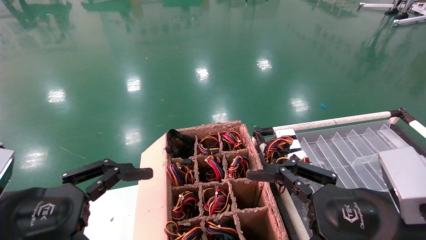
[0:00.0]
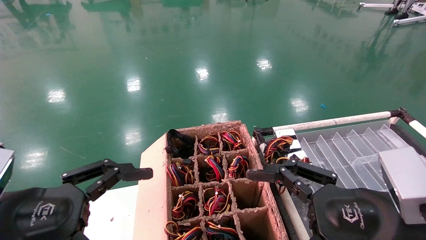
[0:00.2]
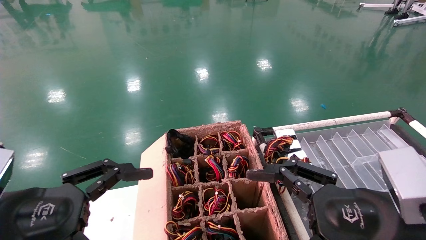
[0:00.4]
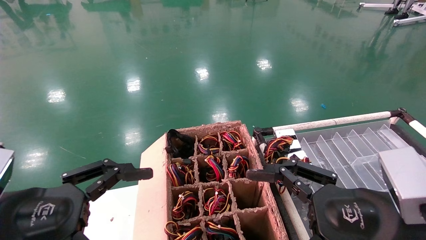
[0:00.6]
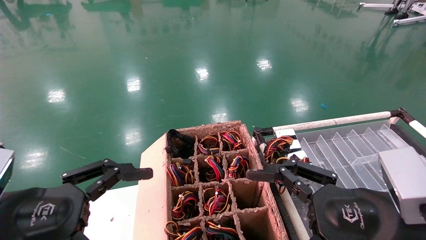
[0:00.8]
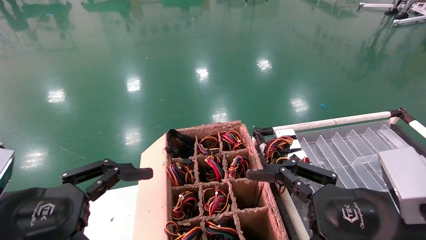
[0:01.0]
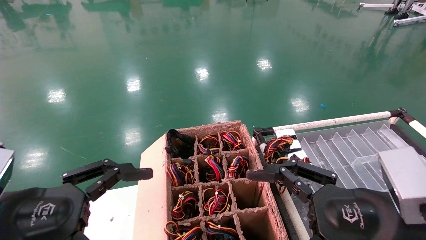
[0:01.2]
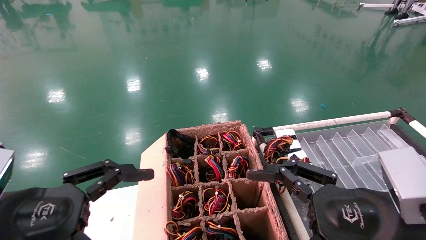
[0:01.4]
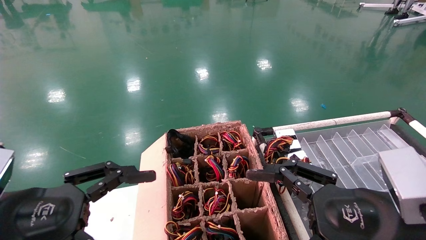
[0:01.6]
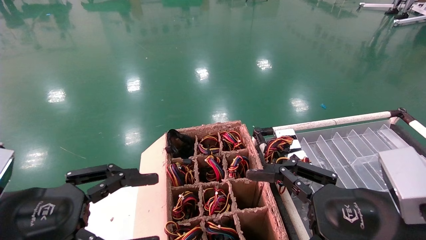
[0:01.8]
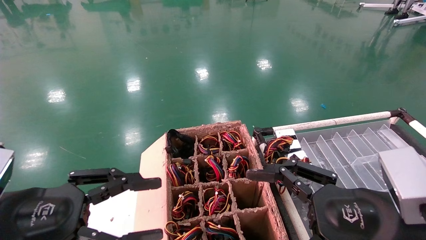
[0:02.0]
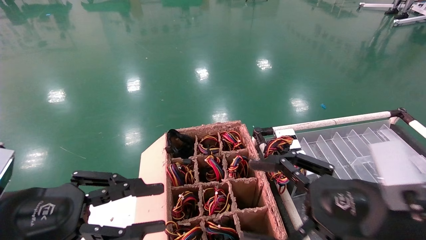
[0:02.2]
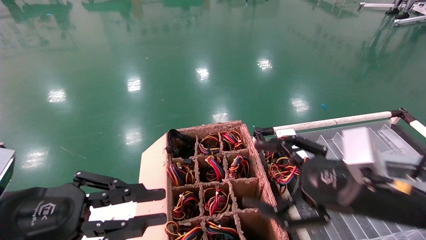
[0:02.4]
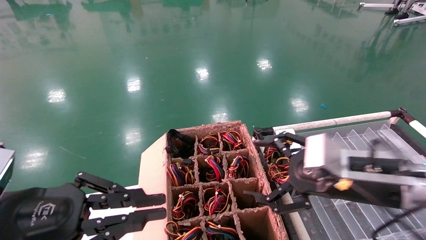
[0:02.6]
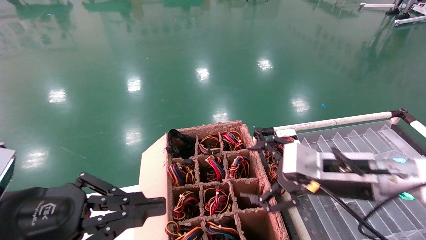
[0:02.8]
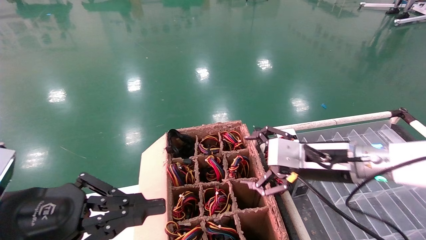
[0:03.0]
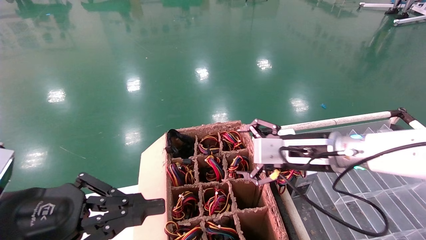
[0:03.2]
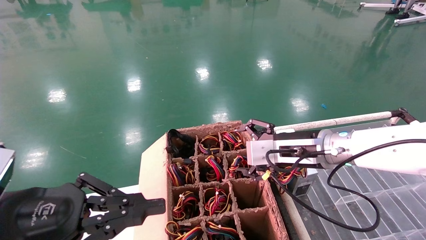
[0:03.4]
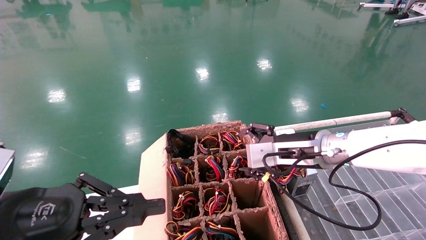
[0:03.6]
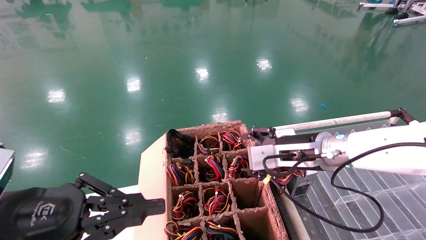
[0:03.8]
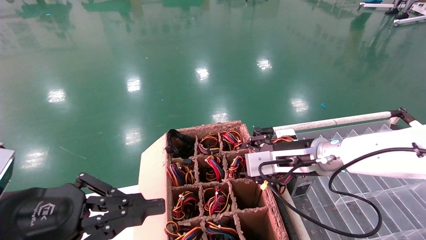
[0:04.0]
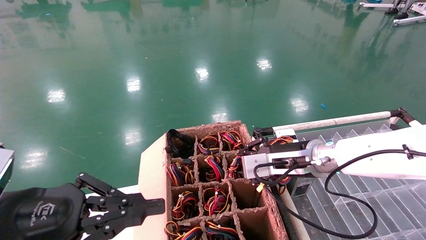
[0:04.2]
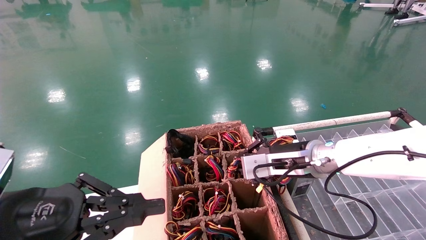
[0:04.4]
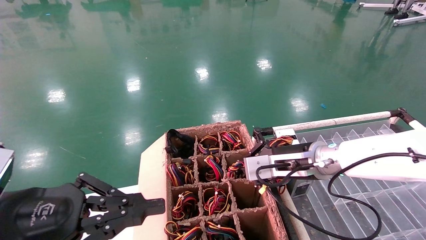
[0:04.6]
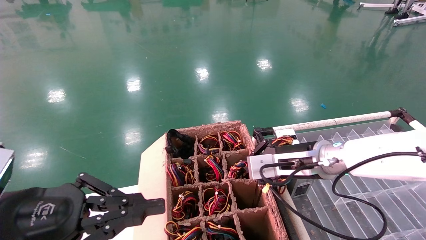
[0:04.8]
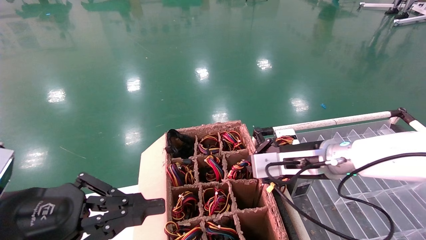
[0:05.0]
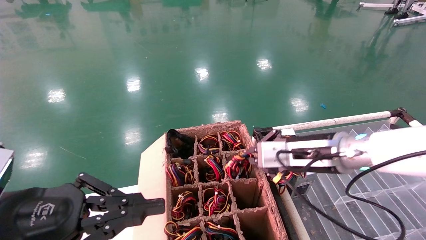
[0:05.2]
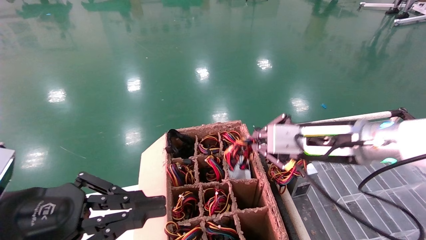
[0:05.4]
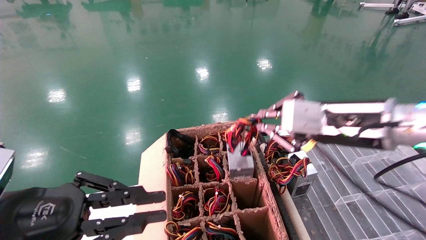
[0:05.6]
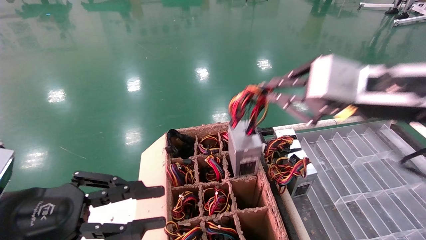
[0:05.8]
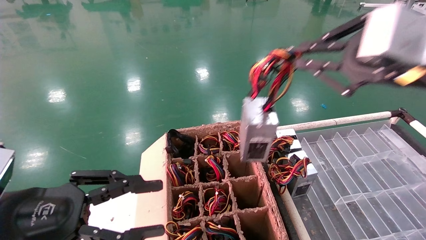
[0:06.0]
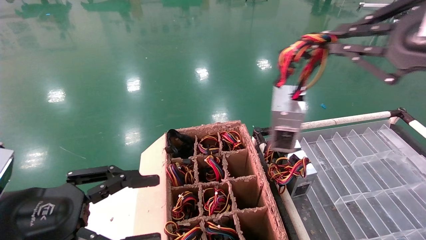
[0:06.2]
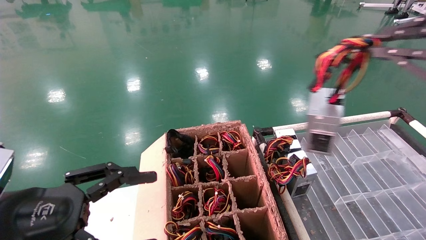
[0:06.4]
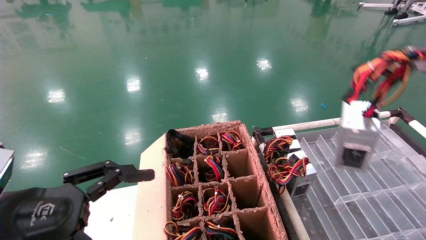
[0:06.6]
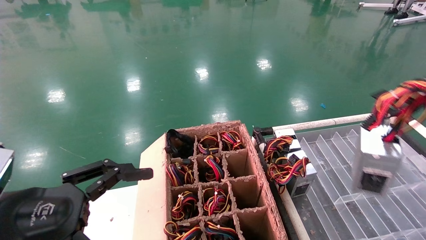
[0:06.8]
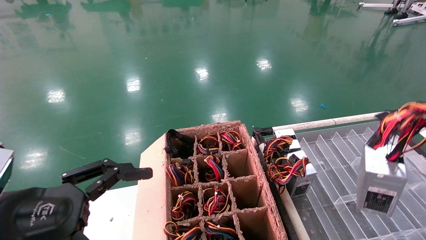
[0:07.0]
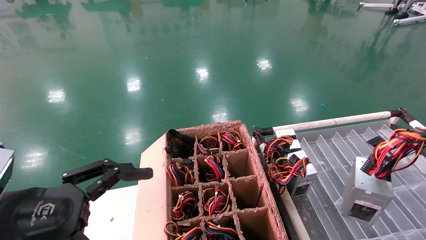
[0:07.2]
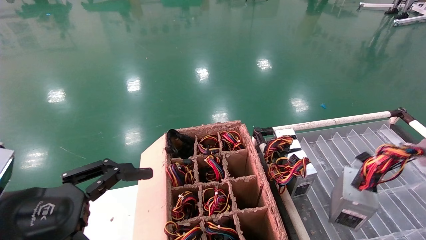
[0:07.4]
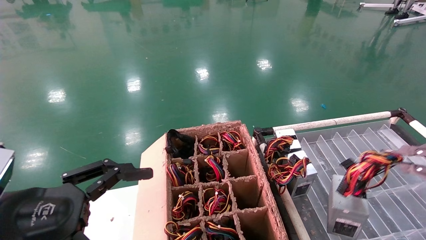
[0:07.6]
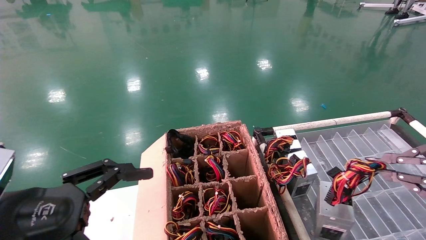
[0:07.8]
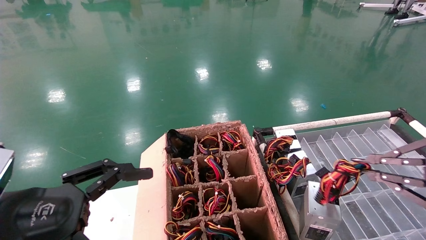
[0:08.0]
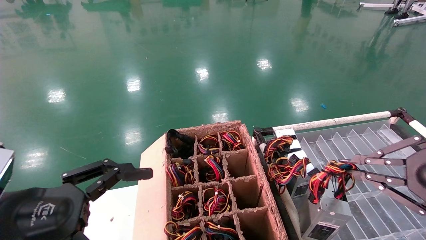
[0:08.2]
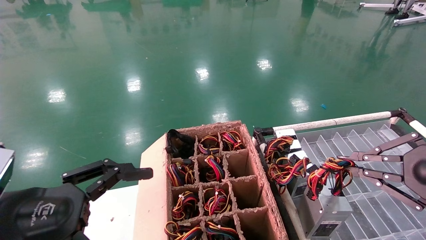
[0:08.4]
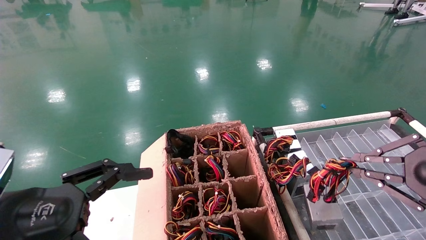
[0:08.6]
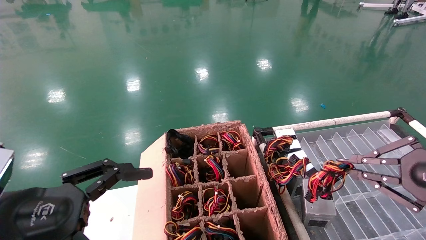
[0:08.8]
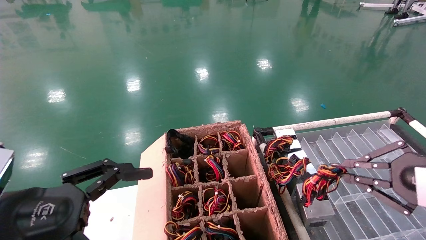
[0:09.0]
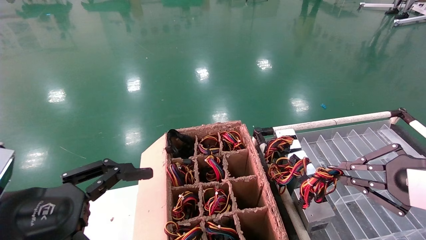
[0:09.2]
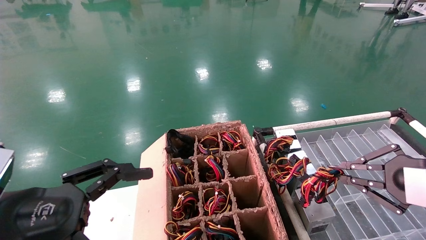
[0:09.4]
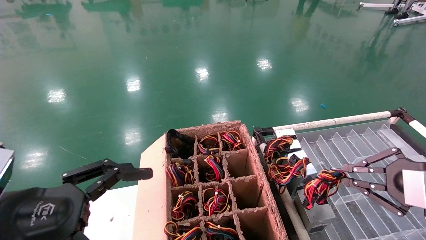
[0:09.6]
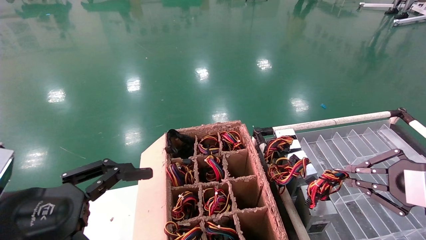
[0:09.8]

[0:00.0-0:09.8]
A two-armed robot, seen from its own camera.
Step, 0:00.0 to 0:06.0: Grab and lift the power supply from the large box.
0:00.0 to 0:01.4: Both grippers stay put.
0:01.4 to 0:02.8: The left gripper closes its fingers, while the right gripper is displaced forward by roughly 10 cm.
0:02.8 to 0:04.2: The right gripper heads forward, covering approximately 5 cm, and closes its fingers.
0:04.2 to 0:05.6: The right gripper heads upward and backward, covering about 15 cm, and closes.
0:05.6 to 0:07.0: The left gripper opens up; the right gripper is displaced to the right and backward by roughly 25 cm.
0:07.0 to 0:08.4: The right gripper moves downward, forward and to the left, about 10 cm.
0:08.4 to 0:09.8: The right gripper moves some 5 cm.

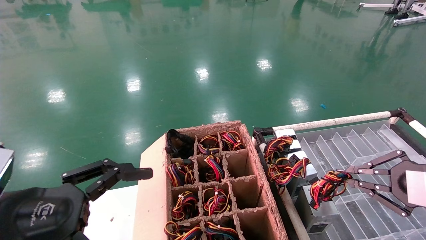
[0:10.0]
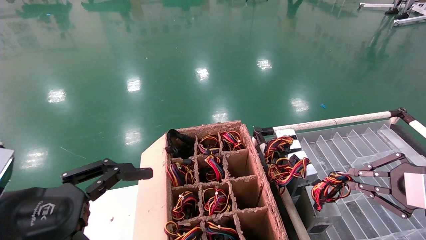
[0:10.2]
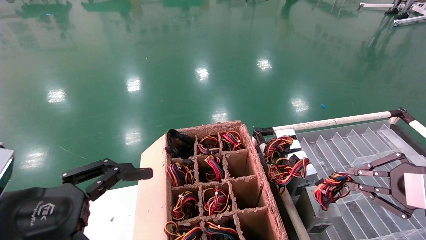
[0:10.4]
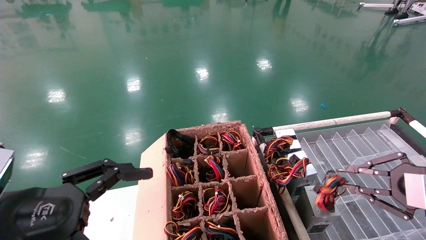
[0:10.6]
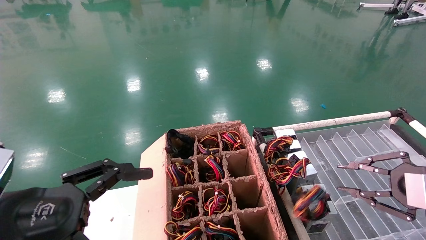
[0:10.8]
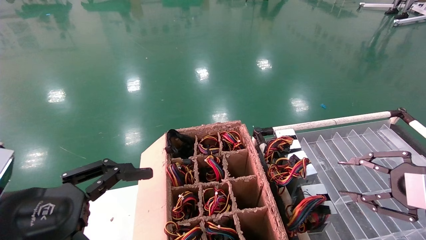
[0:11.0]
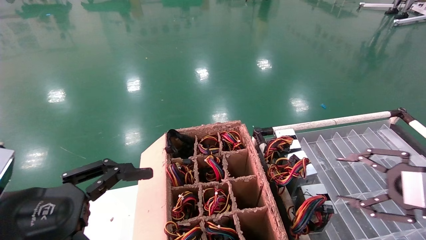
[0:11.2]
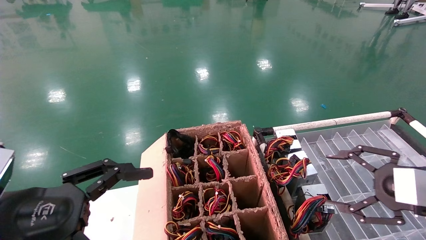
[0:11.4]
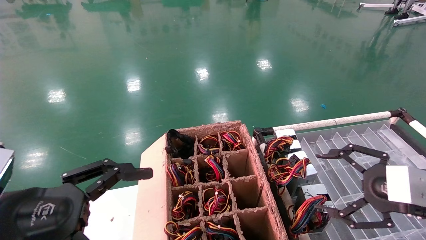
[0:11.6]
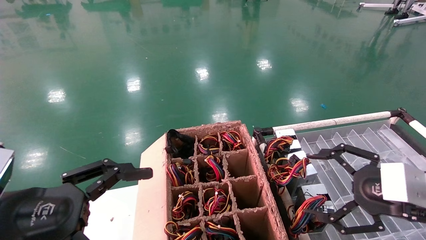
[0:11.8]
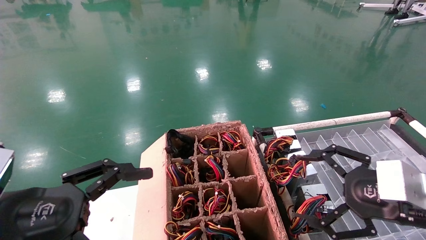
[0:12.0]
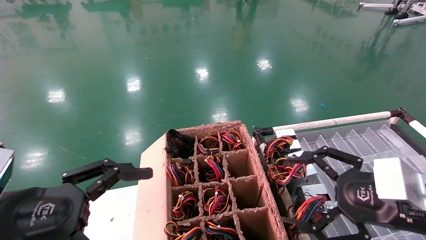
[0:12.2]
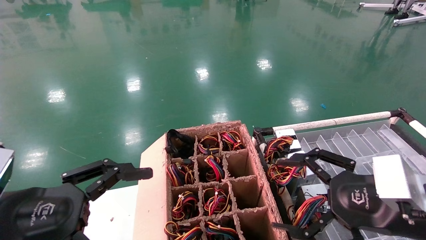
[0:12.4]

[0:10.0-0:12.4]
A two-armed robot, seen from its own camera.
Step, 0:10.0 to 0:12.4: Place the power supply on the operating table.
0:10.0 to 0:11.2: The right gripper opens up.
0:11.2 to 0:12.4: The right gripper shifts roughly 10 cm to the left, and opens up.

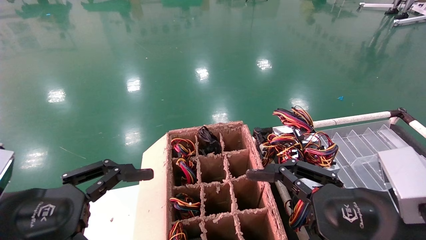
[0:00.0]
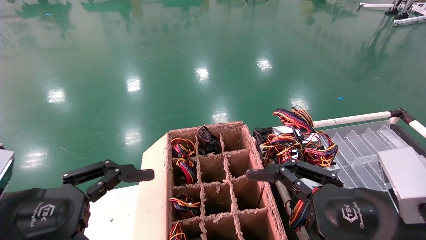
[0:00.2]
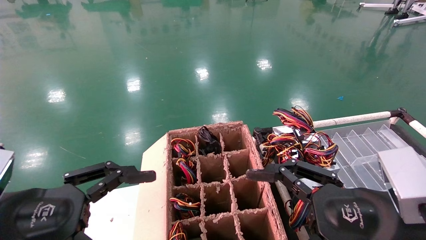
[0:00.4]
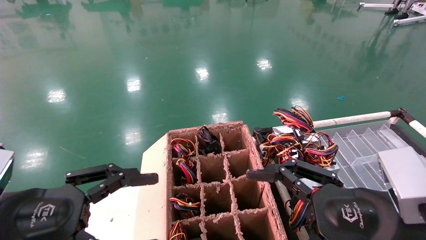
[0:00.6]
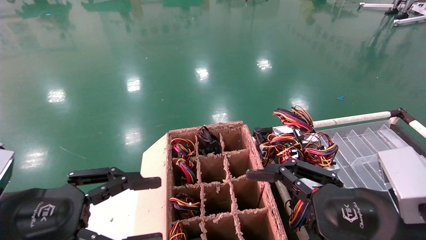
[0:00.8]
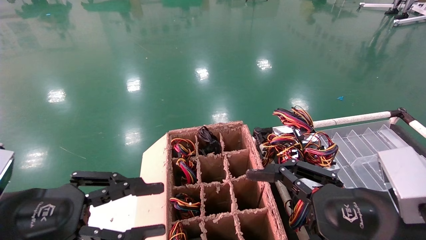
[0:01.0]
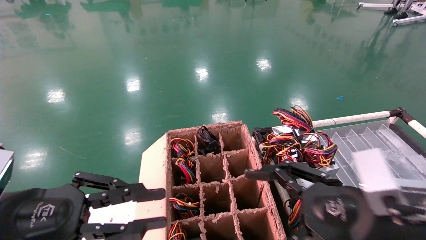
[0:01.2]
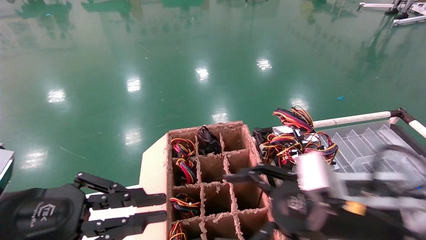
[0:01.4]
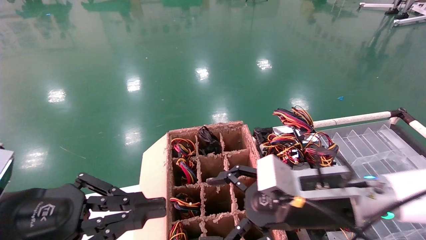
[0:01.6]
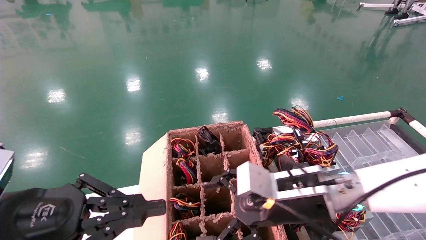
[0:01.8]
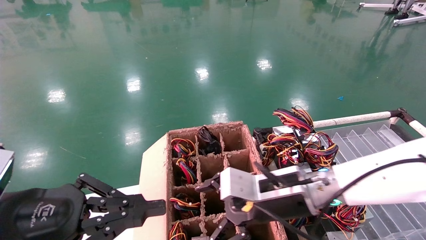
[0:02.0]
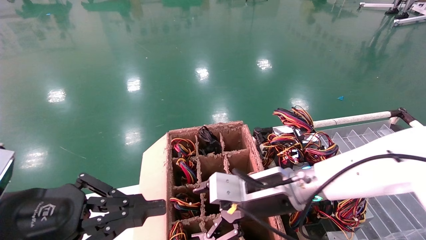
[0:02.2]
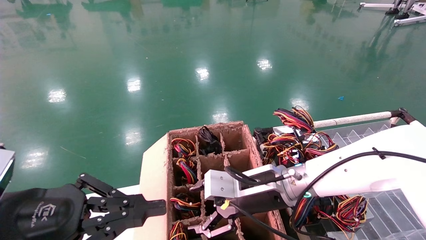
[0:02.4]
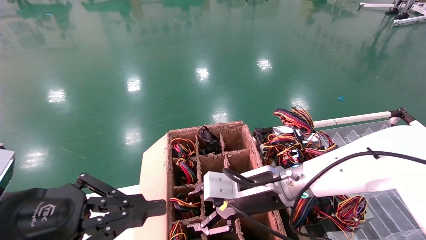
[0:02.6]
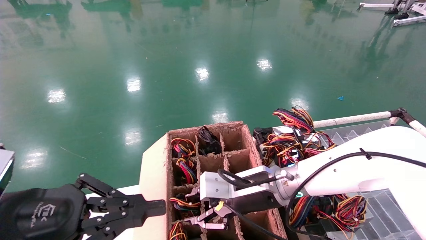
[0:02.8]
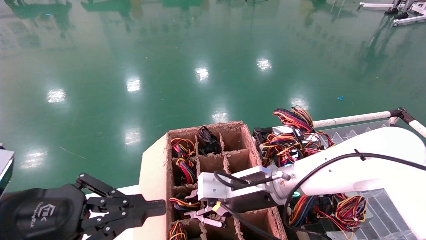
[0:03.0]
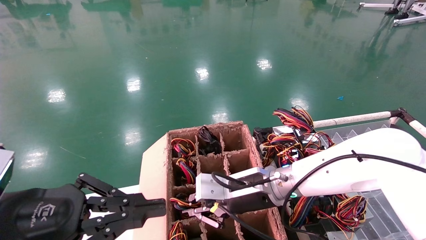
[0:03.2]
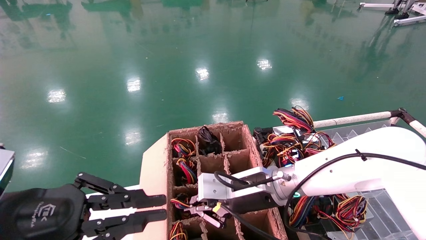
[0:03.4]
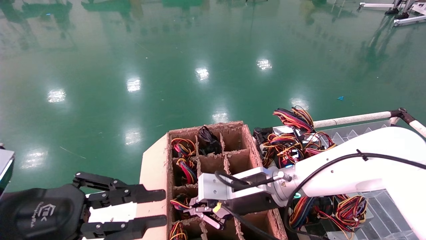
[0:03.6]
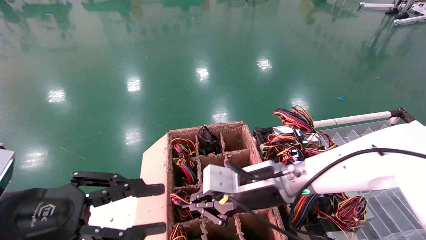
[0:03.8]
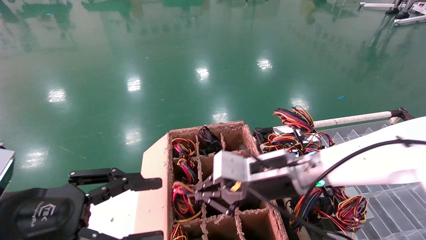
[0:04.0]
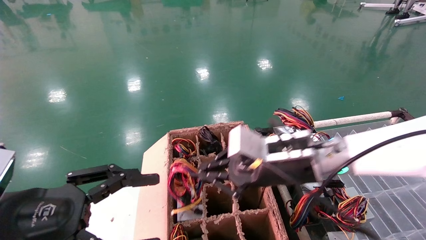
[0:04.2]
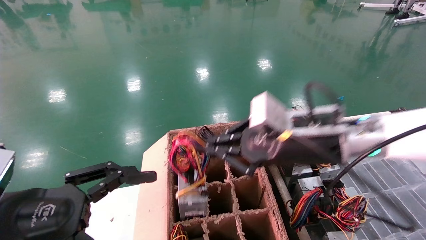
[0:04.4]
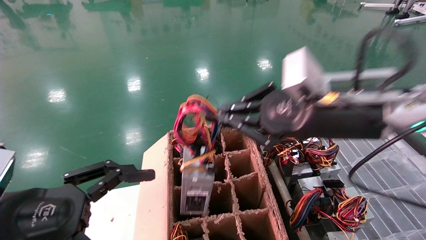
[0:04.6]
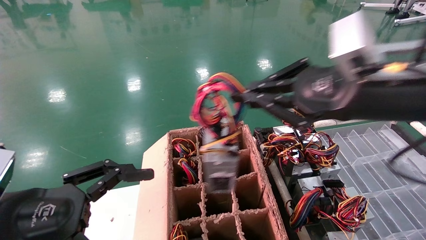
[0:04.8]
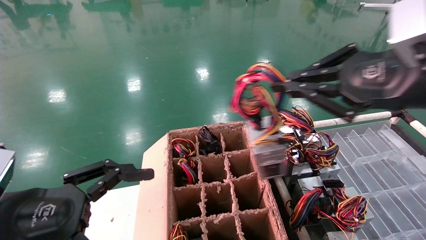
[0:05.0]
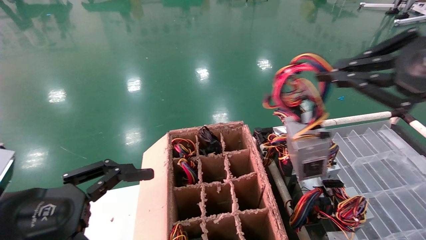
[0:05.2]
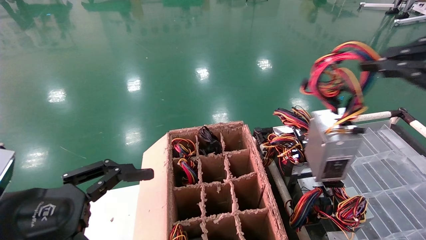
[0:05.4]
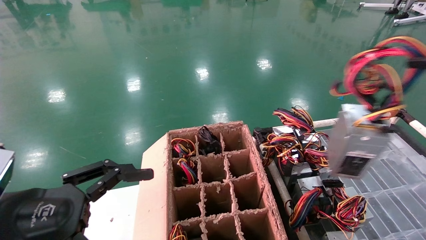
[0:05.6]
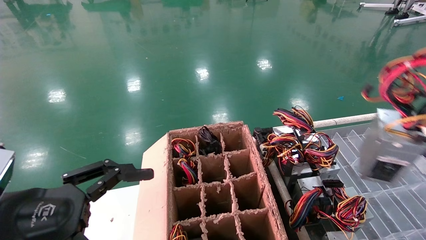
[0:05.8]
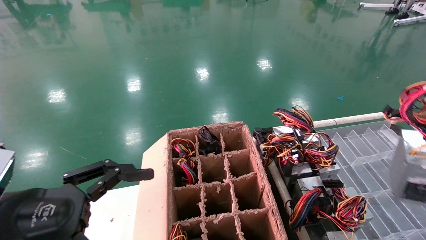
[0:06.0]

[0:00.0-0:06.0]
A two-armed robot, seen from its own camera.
Step, 0:00.8 to 0:03.4: Grab and lift the power supply from the large box.
0:00.0 to 0:01.6: The left gripper closes. Meanwhile the right gripper shifts approximately 10 cm forward and to the left.
0:01.6 to 0:03.0: The right gripper goes some 10 cm forward and to the left, and closes up.
0:03.0 to 0:04.4: The left gripper opens. Meanwhile the right gripper travels upward, to the right and backward by approximately 15 cm.
0:04.4 to 0:06.0: The right gripper moves to the right and backward, about 35 cm.
